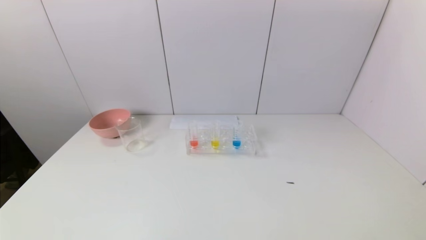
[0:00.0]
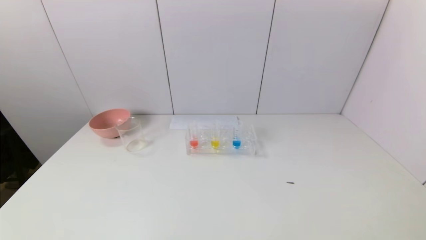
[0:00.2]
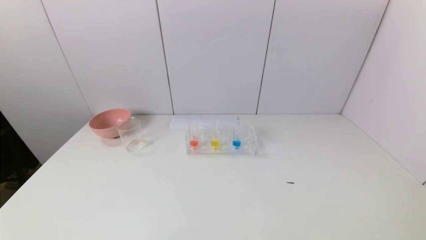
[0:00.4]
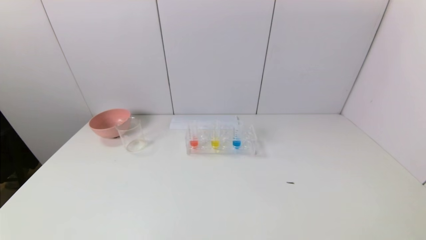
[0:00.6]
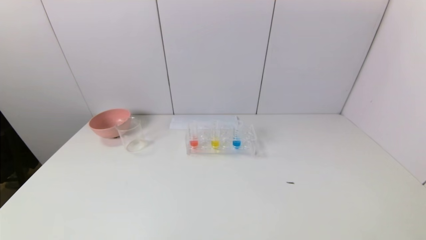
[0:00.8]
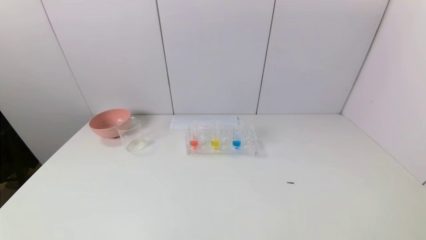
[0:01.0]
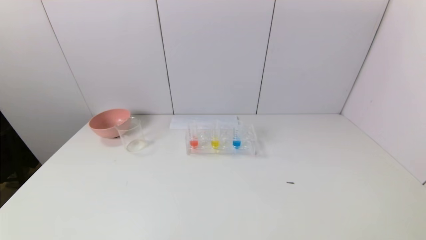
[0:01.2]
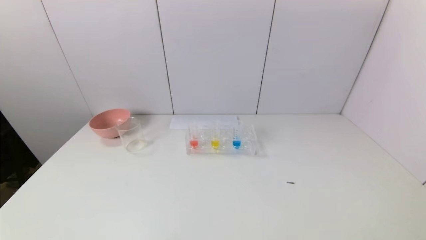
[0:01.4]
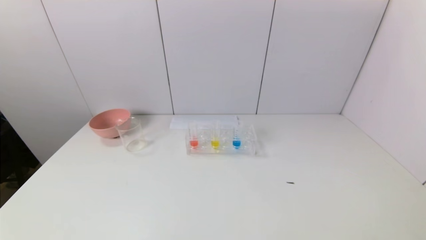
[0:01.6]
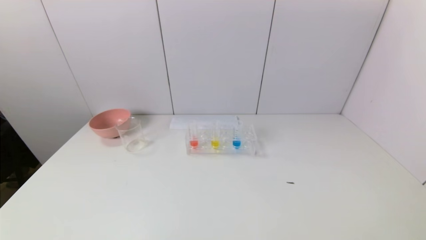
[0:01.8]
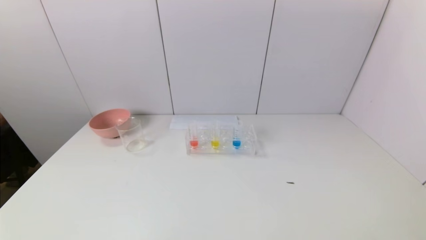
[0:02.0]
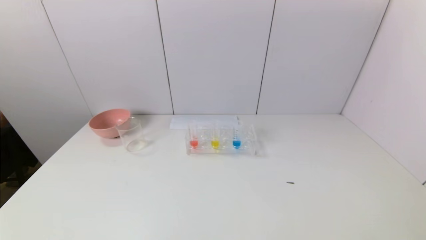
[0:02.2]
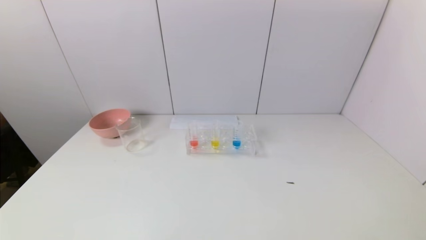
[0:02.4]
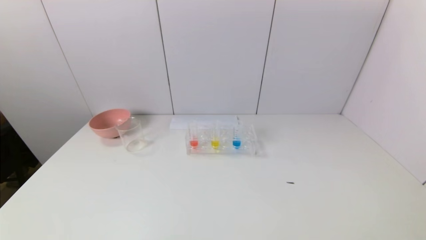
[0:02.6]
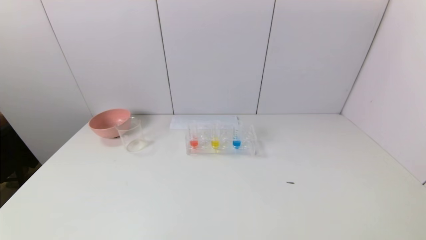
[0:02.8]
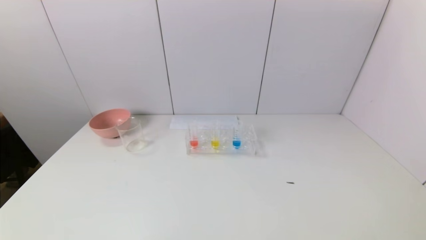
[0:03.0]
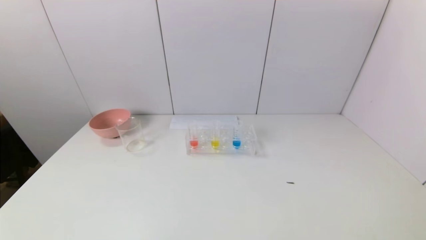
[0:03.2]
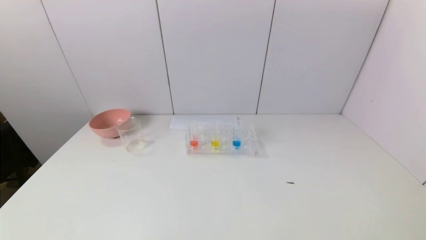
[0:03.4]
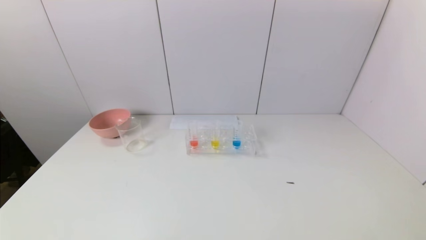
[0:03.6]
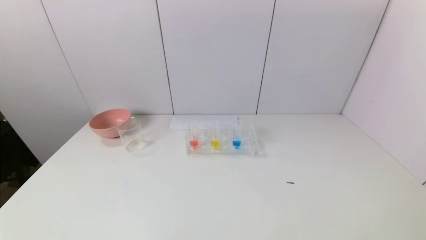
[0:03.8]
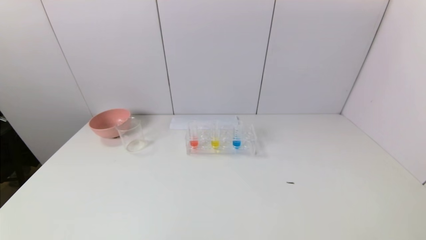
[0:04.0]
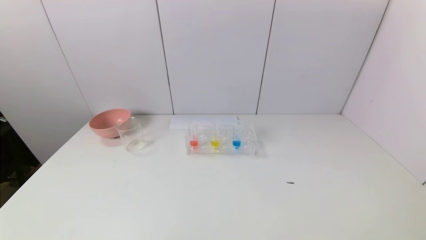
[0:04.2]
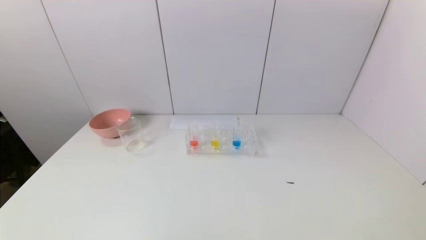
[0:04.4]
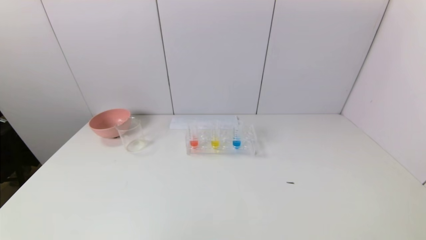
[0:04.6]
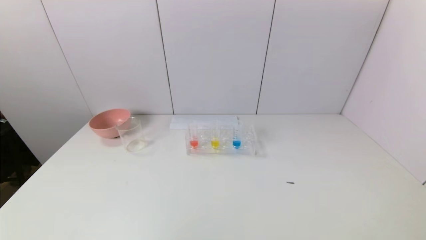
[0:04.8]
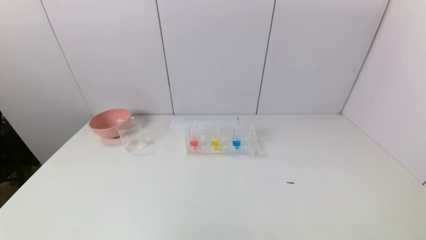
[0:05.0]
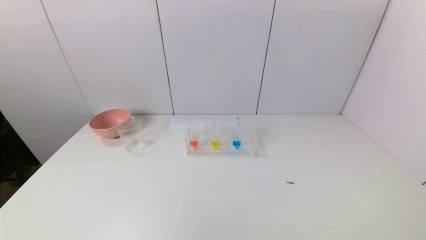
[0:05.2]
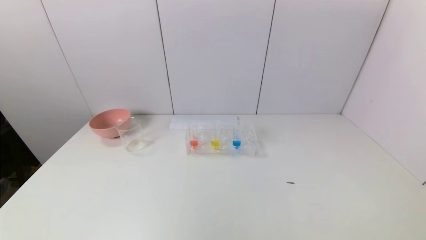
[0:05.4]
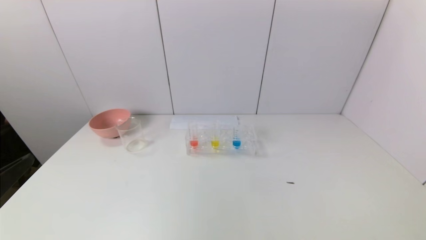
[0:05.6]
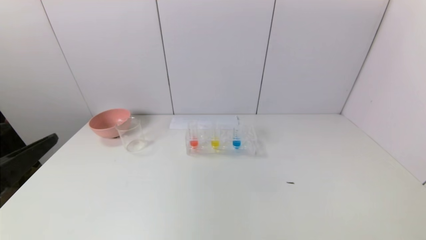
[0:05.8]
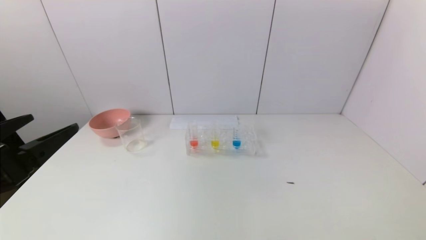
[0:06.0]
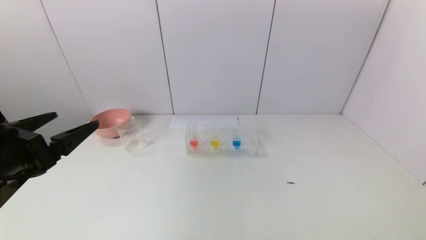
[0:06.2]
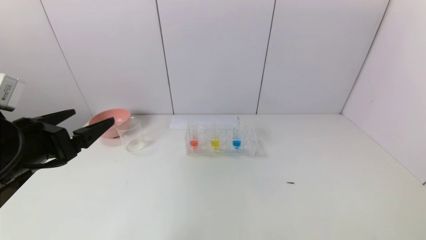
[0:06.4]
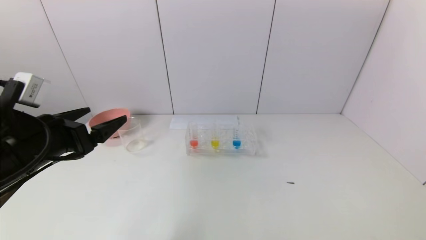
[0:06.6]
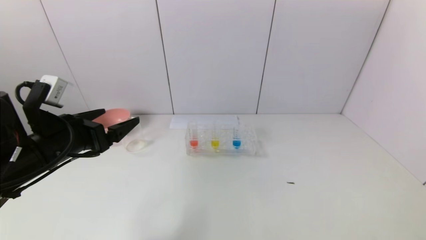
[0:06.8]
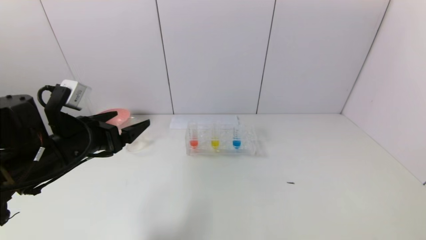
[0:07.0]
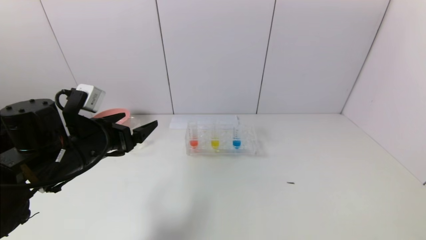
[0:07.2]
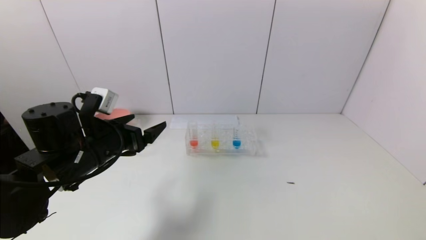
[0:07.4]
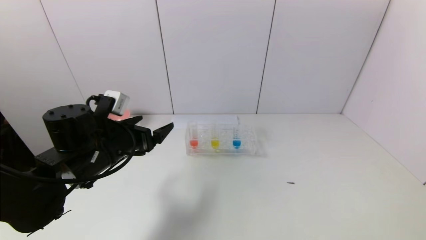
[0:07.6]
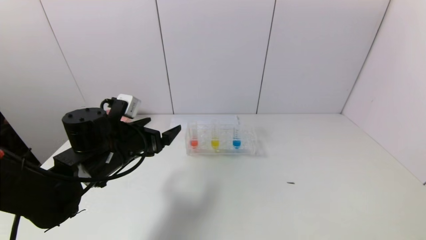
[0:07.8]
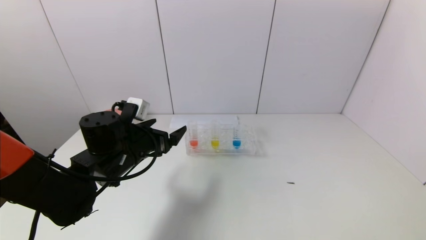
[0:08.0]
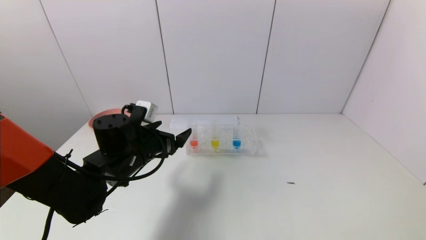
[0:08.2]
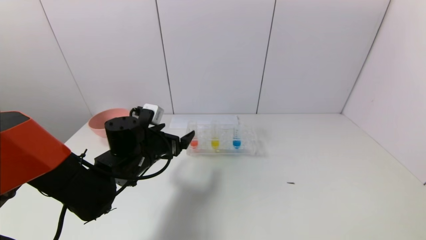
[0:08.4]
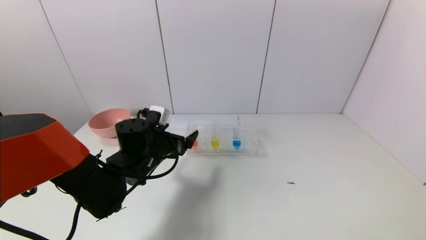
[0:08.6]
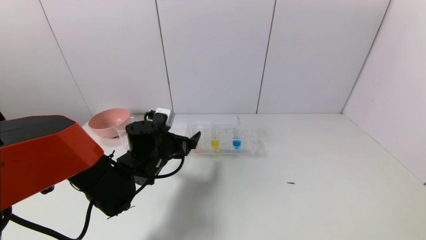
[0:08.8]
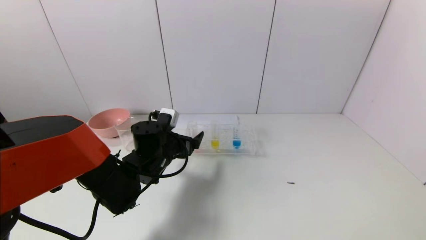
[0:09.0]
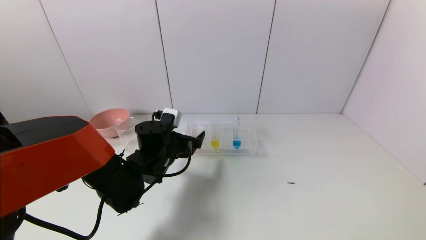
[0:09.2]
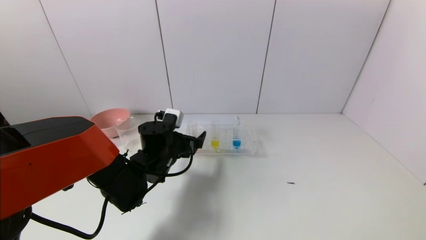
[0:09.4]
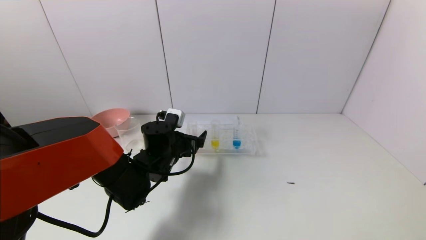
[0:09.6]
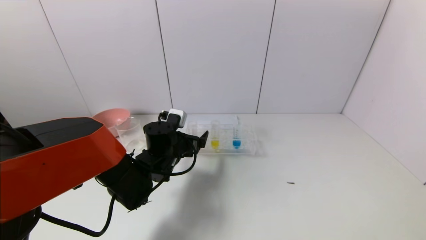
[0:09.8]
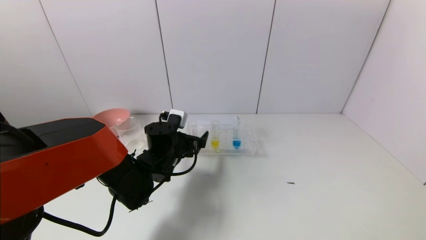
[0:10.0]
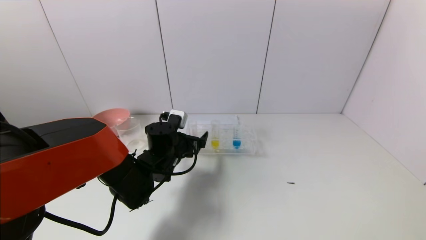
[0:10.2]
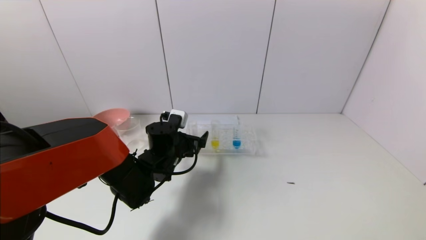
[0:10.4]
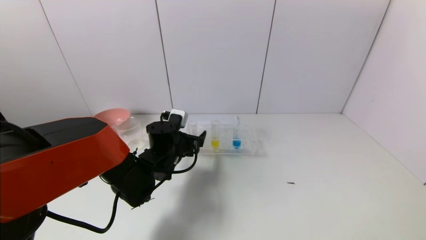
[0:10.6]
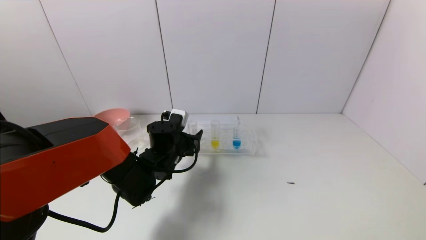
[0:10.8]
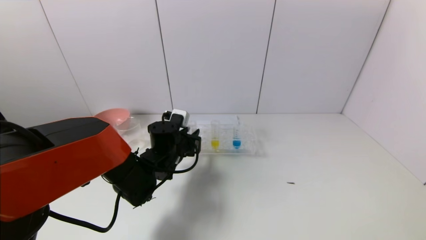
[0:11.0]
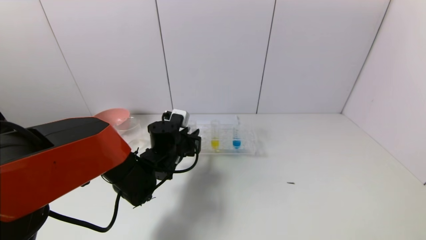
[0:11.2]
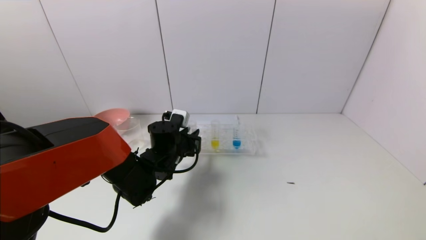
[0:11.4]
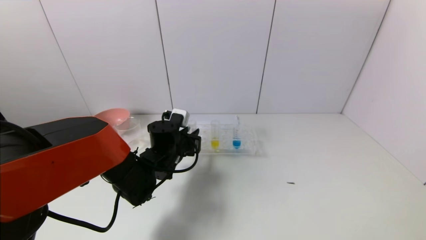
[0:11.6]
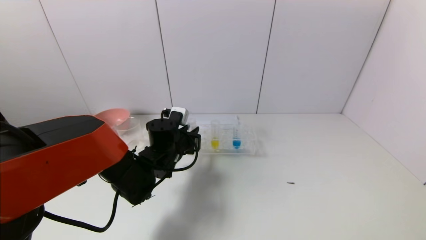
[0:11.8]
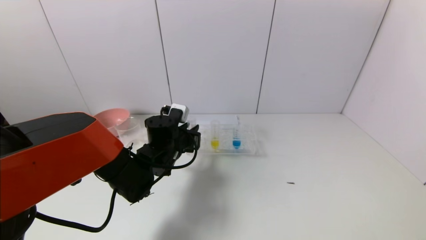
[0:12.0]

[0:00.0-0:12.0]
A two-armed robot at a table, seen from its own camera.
Task of the whole recording: pick up the test tube with yellow pigment and the test tube with red pigment by grippers and pour them into the beaker.
Step, 0:00.0 to 0:11.4: Grasp the red reagent with the left gripper.
0:00.0 to 0:03.0: The two grippers keep their place.
0:04.4 to 0:06.0: The left gripper heads forward and upward, covering about 20 cm.
0:06.0 to 0:07.6: The left gripper goes approximately 20 cm forward, to the right and downward.
0:07.6 to 0:09.0: The left gripper goes approximately 10 cm to the right, downward and forward.
0:09.0 to 0:10.4: The grippers stay close to where they were, moving slightly.
0:10.4 to 0:12.0: The left gripper closes its fingers.

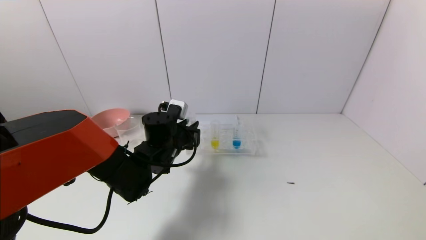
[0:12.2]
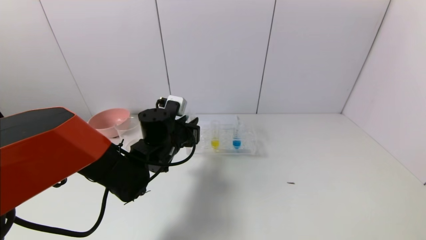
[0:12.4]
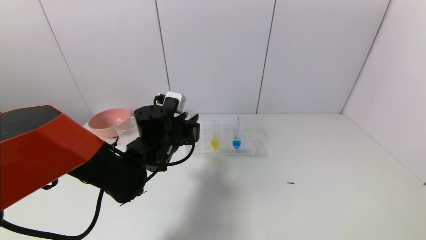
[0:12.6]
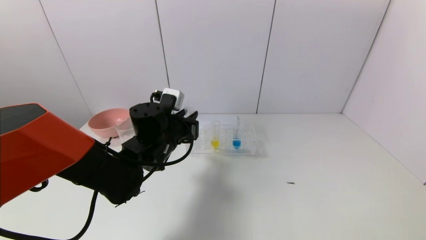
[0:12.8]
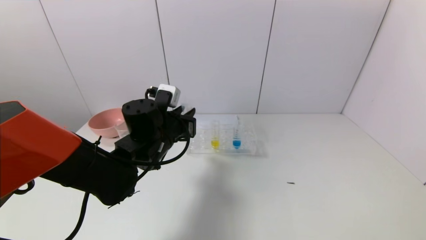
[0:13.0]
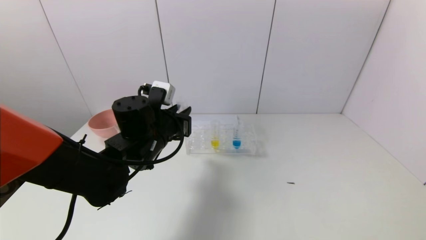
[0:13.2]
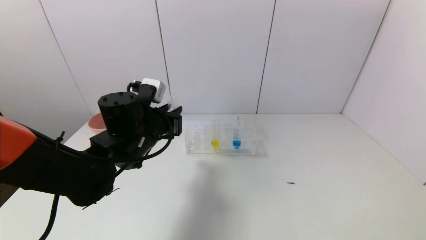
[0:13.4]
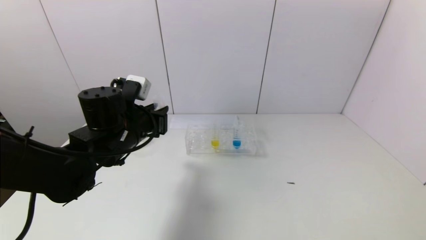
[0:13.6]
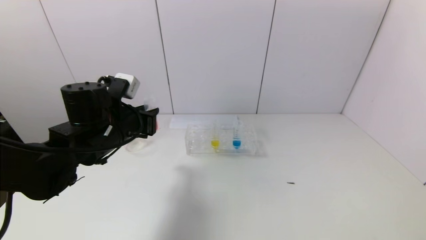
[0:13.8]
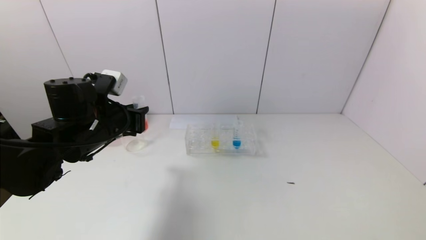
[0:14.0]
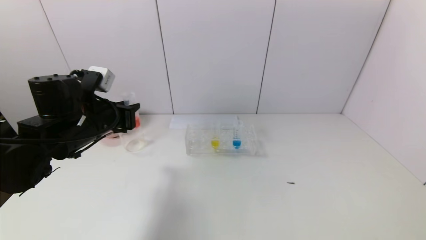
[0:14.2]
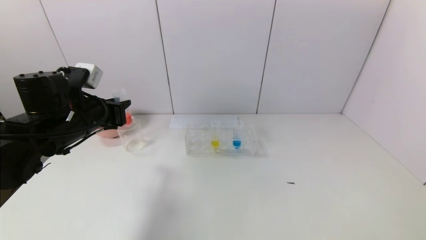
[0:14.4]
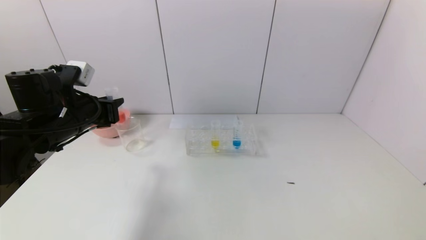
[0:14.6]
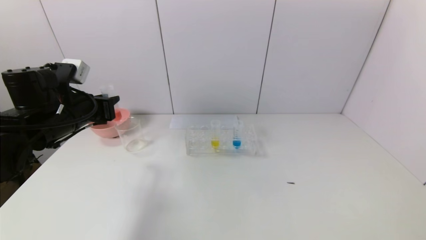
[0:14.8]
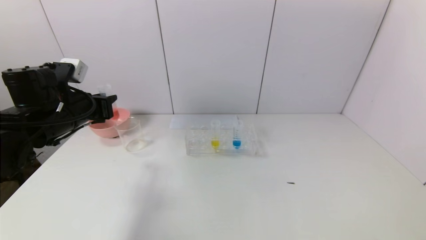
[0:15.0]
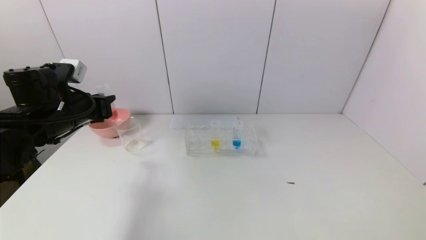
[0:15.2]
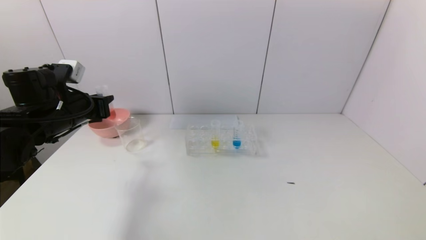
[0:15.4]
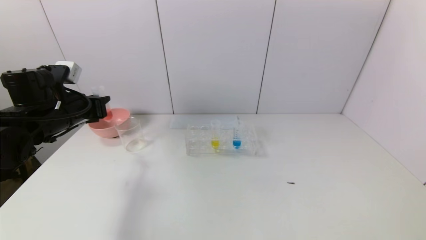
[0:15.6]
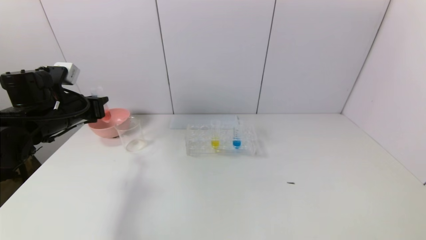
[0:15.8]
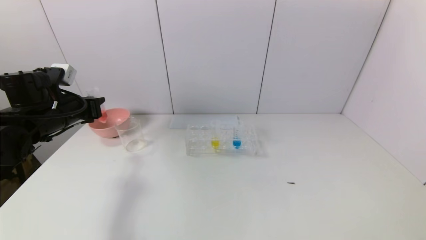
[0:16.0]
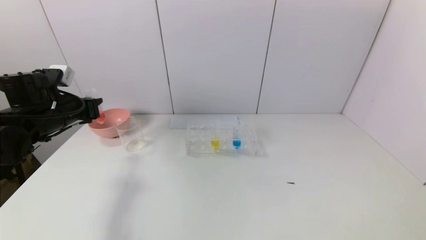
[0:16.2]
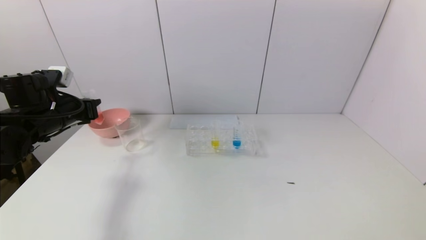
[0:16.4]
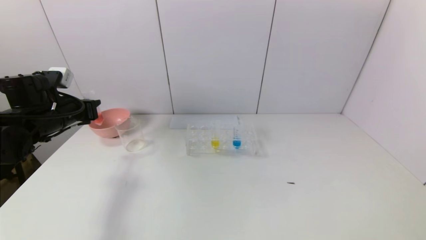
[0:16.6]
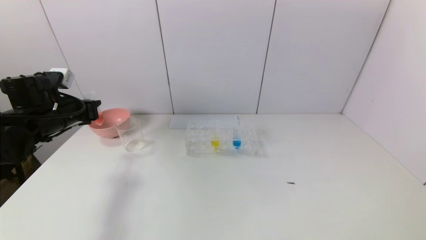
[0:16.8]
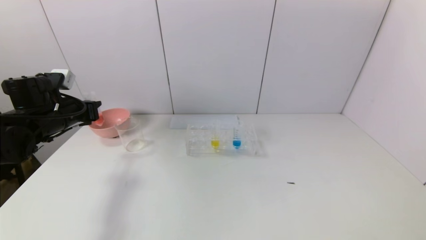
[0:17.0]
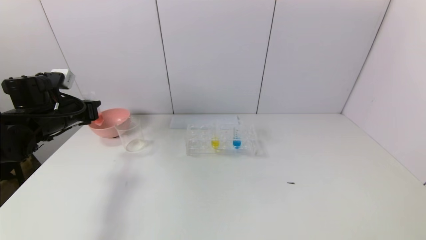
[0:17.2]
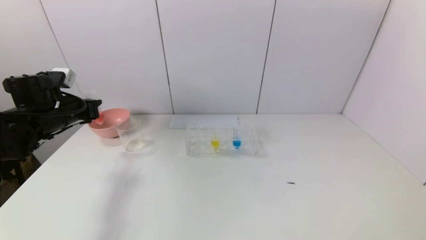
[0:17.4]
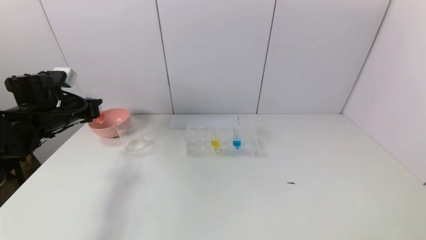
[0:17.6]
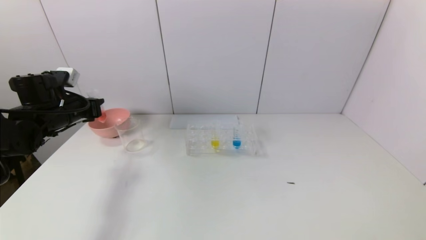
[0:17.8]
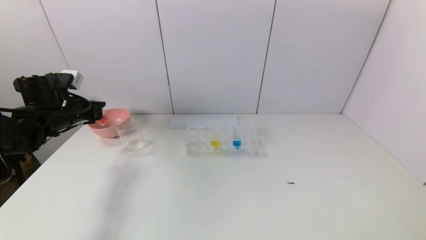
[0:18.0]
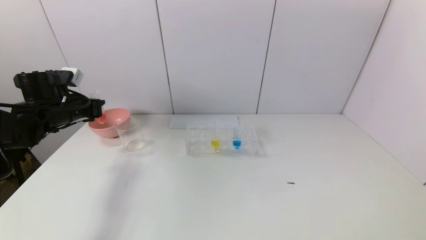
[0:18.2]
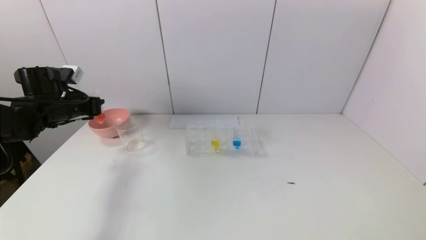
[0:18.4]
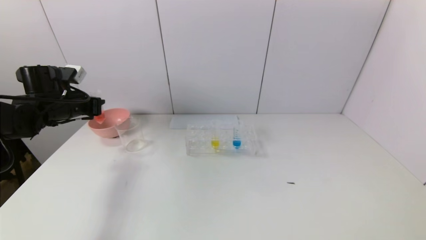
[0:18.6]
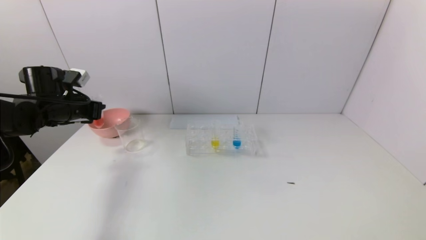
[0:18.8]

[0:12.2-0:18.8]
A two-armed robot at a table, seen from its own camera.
Task of the whole recording: pick up the test tube with yellow pigment and the test tube with red pigment by grippers and pour them into the beaker.
0:12.2 to 0:13.8: The left gripper is displaced to the left, upward and backward by roughly 15 cm.
0:13.8 to 0:15.4: The left gripper heads to the left, covering roughly 10 cm.
0:15.4 to 0:17.2: The left gripper changes place by roughly 5 cm.
0:17.2 to 0:18.8: The grippers stay close to where they were, moving slightly.
